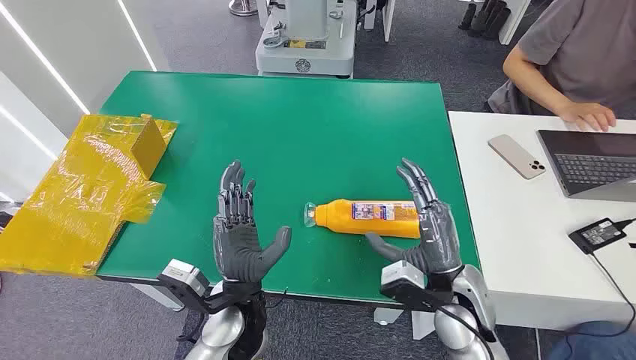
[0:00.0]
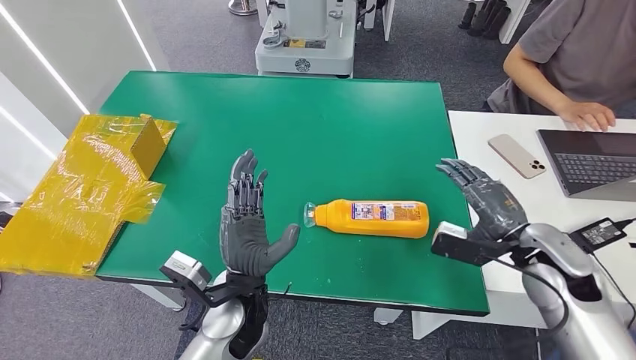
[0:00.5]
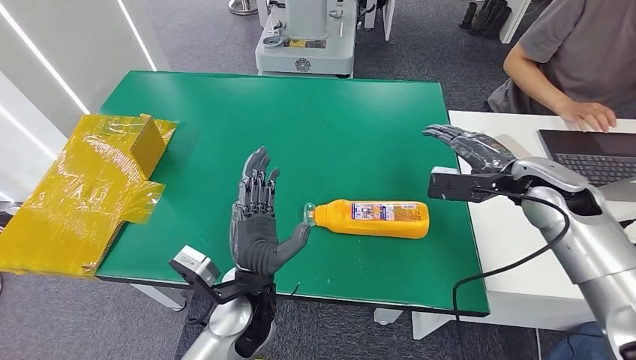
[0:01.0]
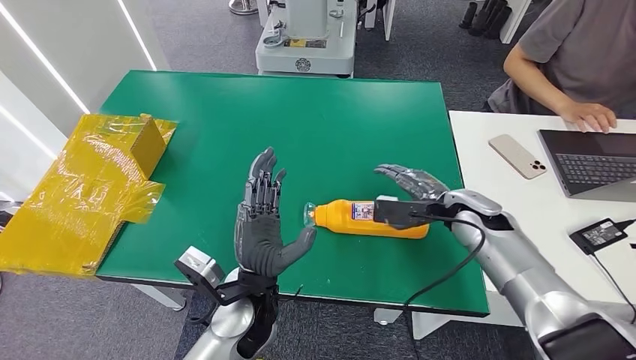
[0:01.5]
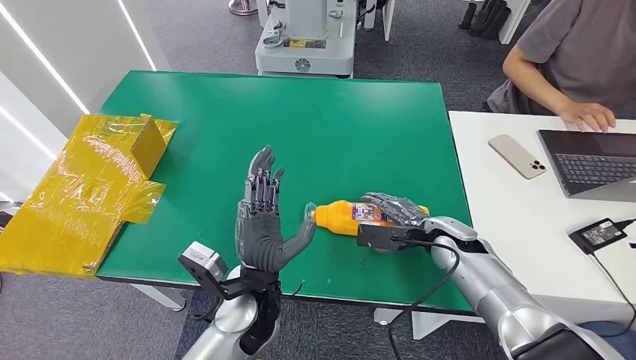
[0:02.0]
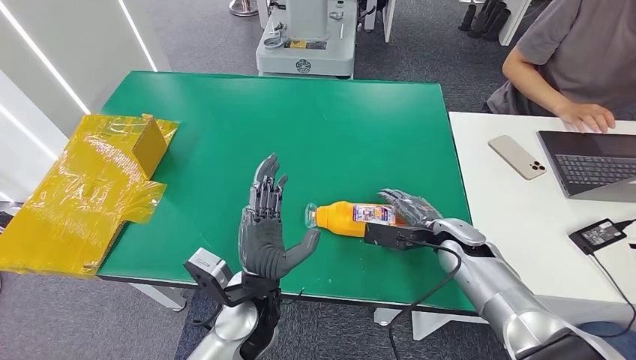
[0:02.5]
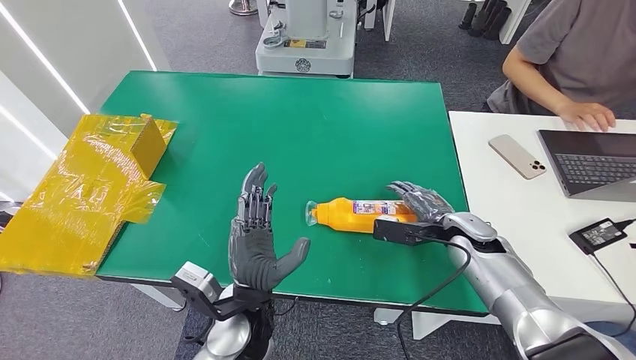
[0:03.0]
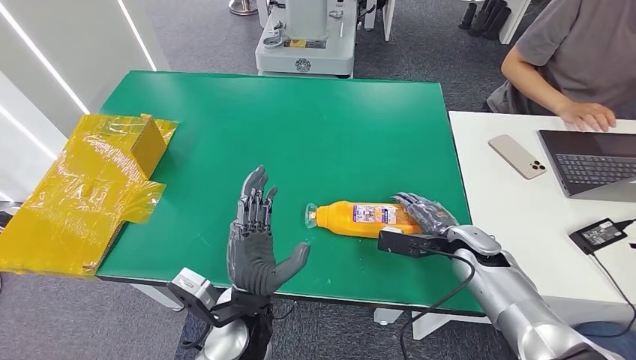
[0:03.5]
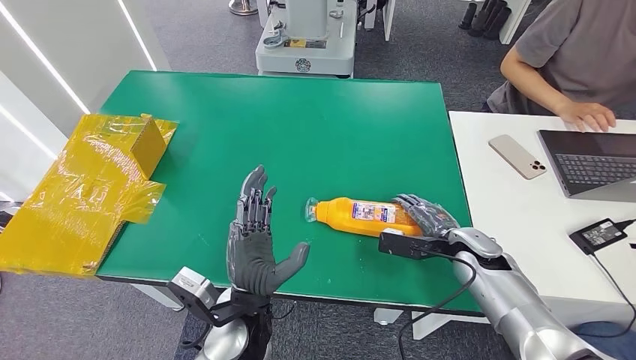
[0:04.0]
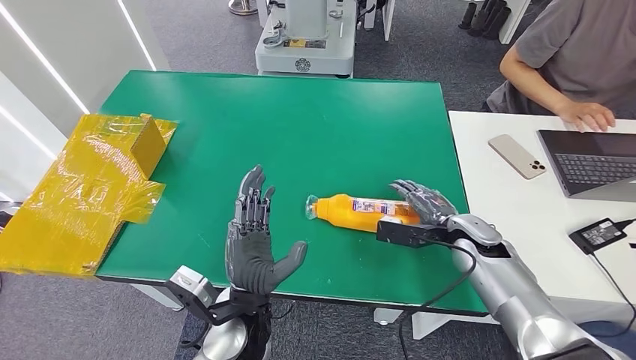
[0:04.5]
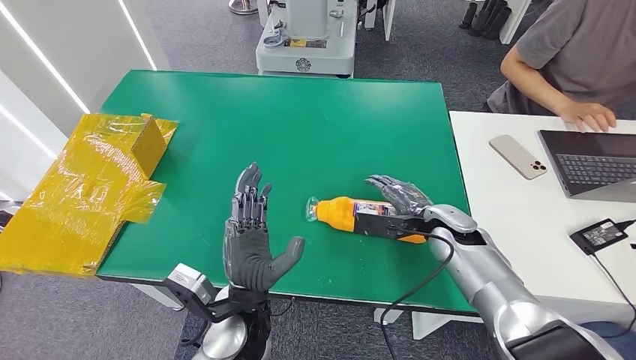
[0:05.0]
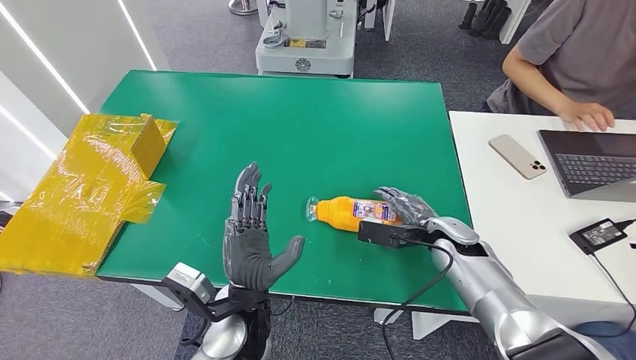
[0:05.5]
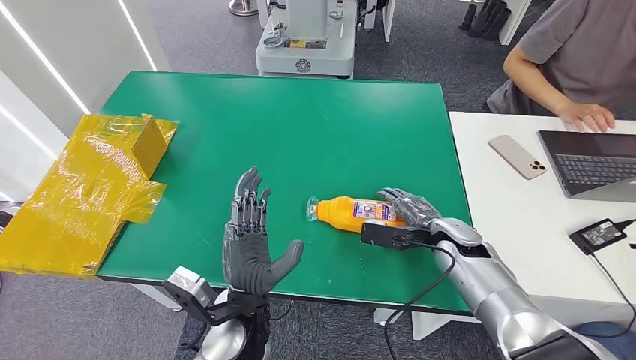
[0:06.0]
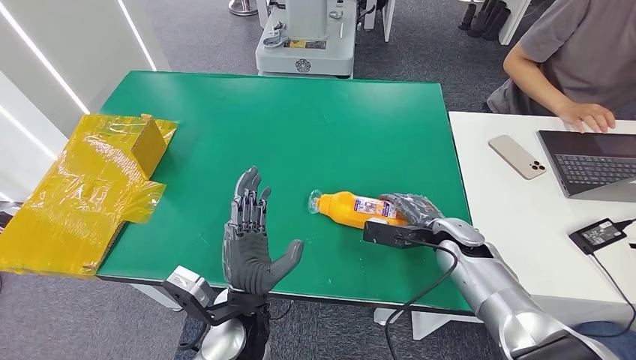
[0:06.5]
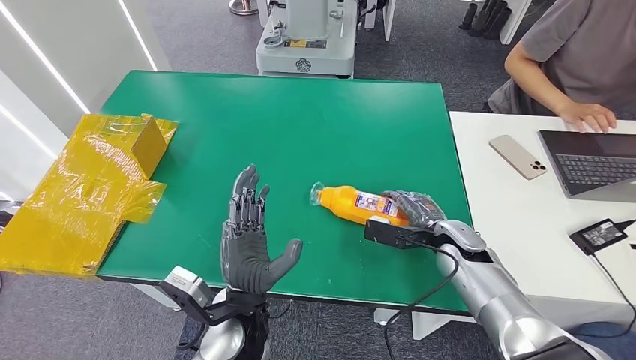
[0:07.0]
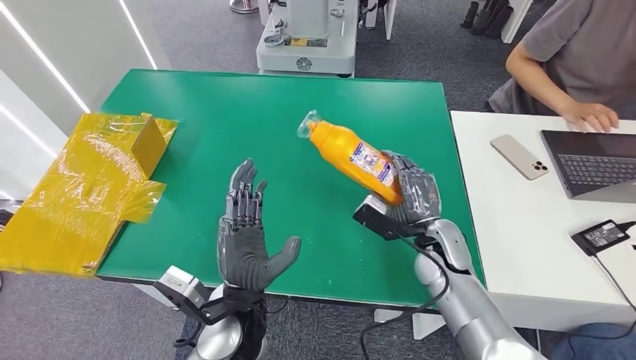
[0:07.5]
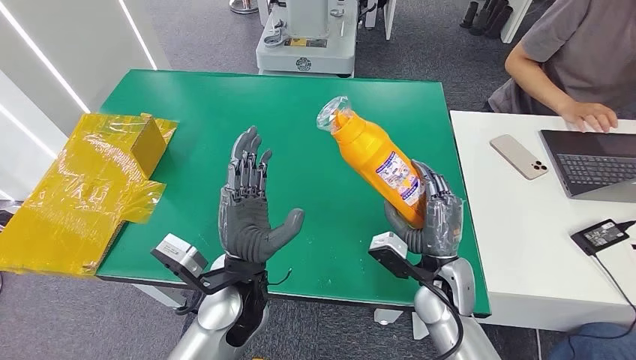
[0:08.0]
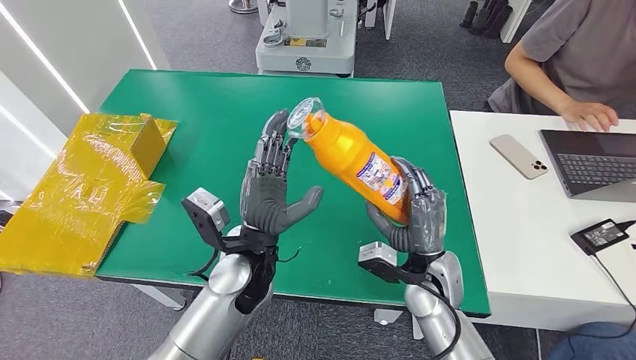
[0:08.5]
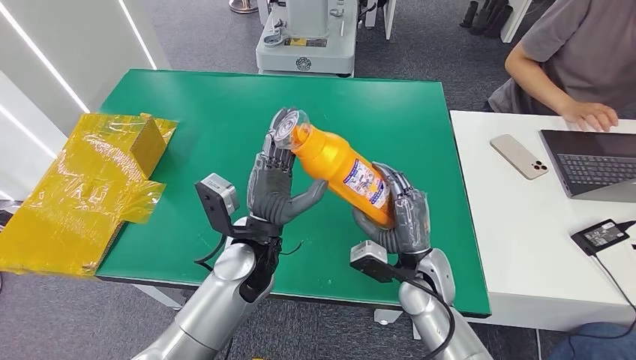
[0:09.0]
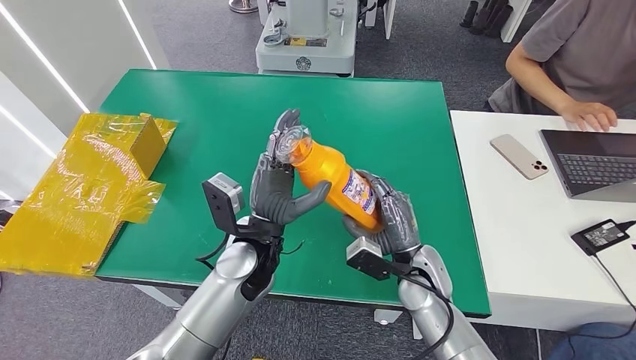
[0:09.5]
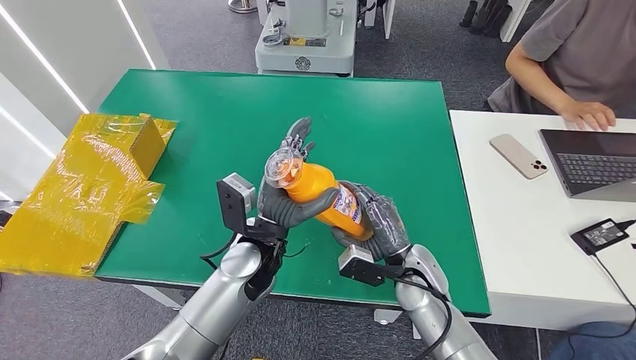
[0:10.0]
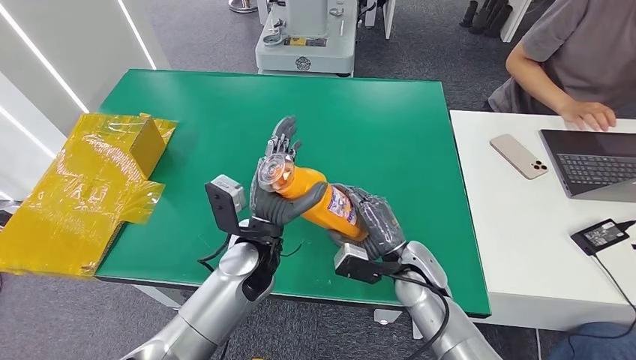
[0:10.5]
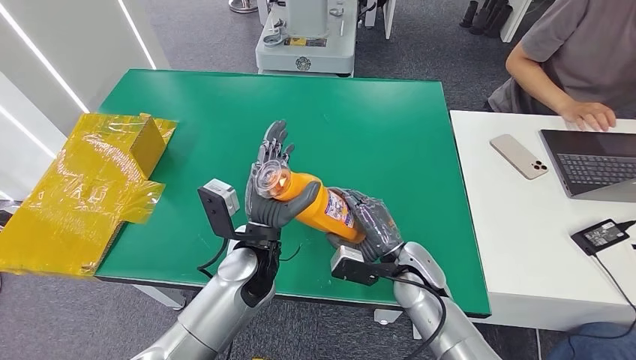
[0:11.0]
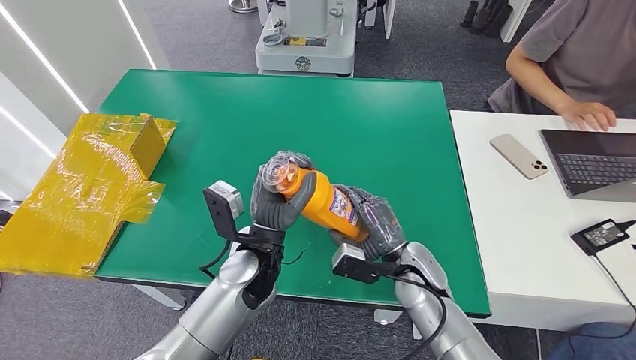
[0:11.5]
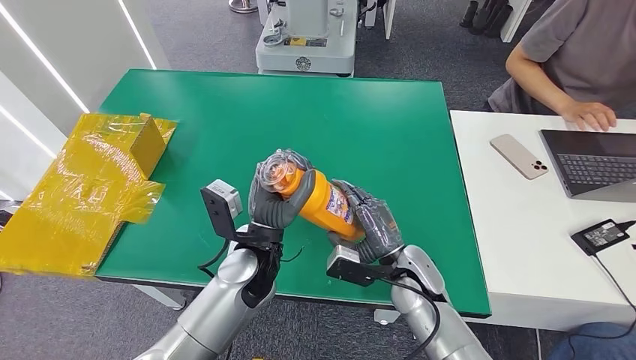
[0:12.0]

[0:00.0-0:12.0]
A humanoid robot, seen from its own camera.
Step, 0:00.0 to 0:07.5: Pick up the bottle from the table.
0:02.0 to 0:04.0: There are only small adjustments of the hands.
0:06.0 to 0:08.0: The left hand ends up approximately 5 cm from where it was. Meanwhile the right hand is displaced to the left and backward by approximately 15 cm.
0:08.0 to 0:10.0: The left hand goes about 5 cm forward.
0:10.0 to 0:12.0: The hands make only small movements.

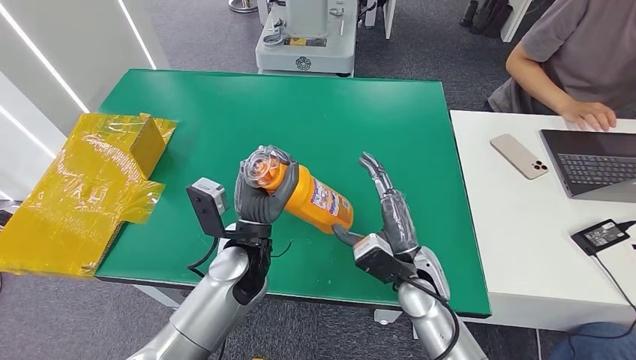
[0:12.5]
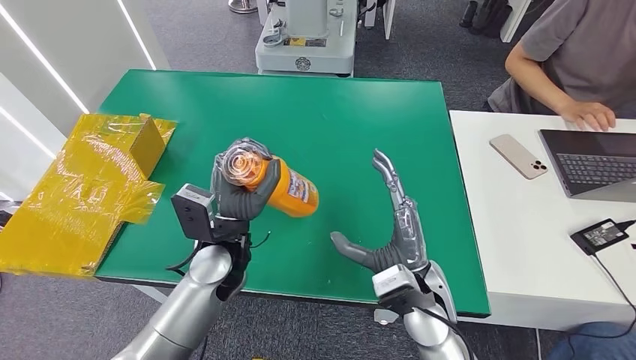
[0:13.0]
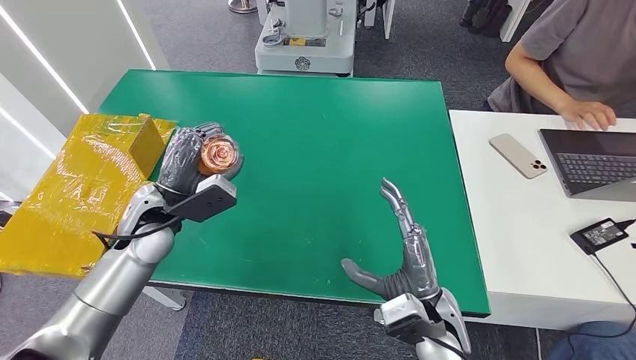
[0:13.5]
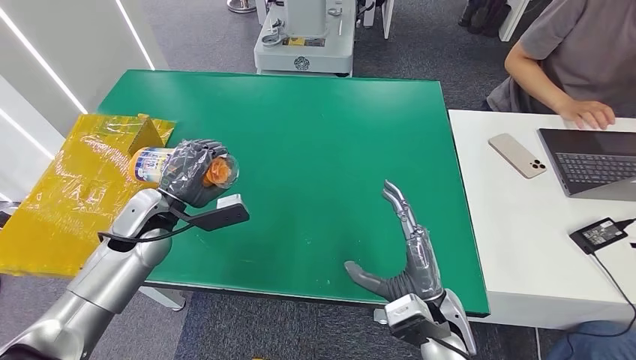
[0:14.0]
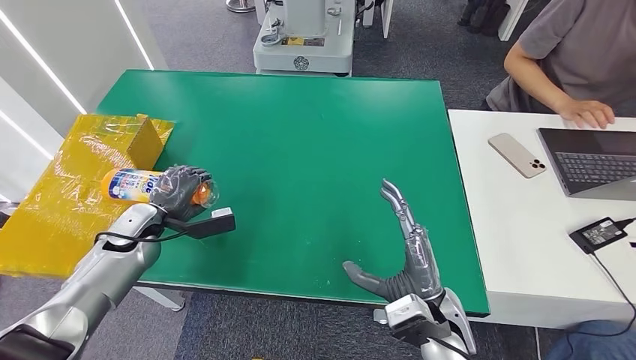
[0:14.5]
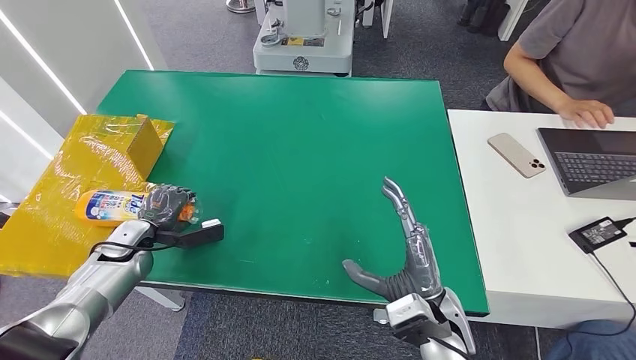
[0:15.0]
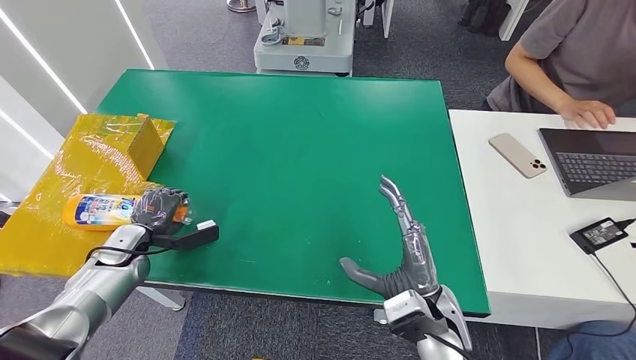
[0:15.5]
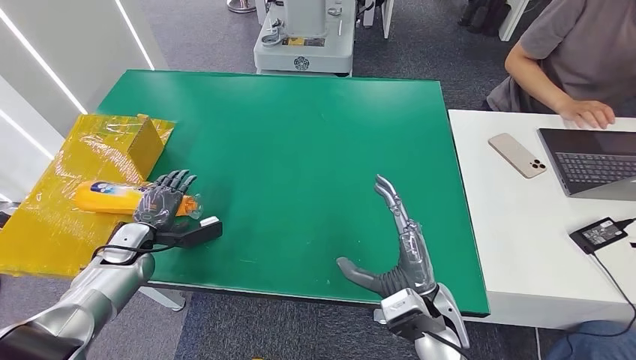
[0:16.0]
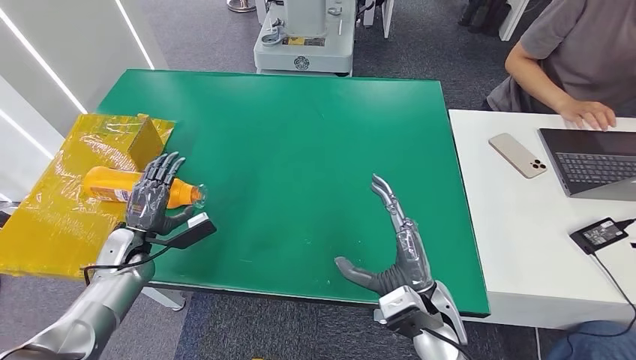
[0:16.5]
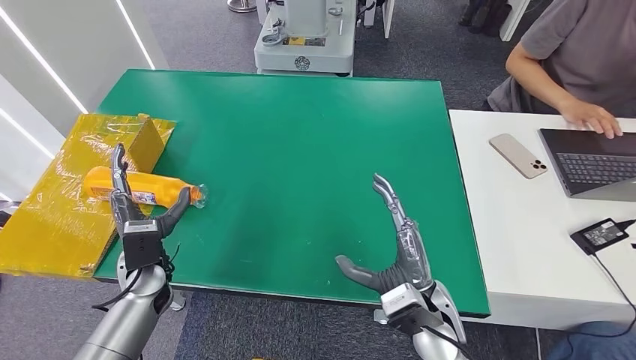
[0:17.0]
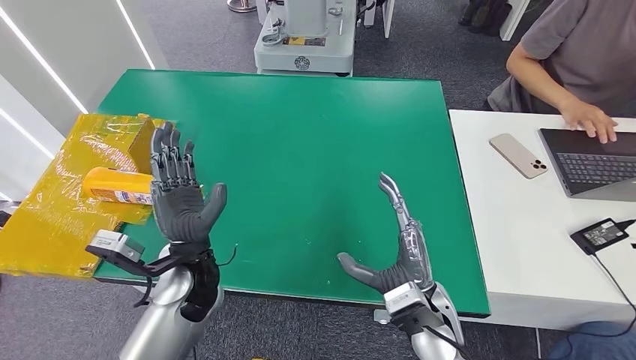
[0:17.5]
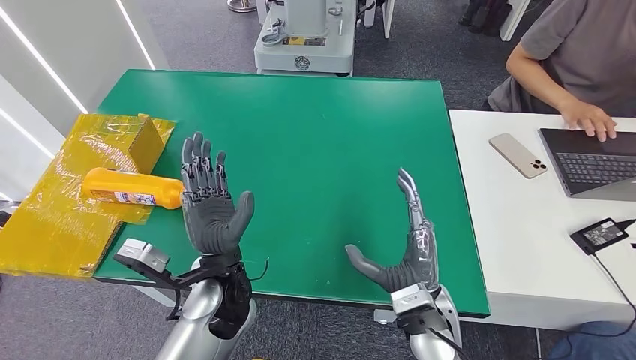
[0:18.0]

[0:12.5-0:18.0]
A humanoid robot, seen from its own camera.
Step, 0:12.5 to 0:18.0: Turn the bottle to the front side.
0:14.5 to 0:16.0: The left hand moves downward, some 5 cm.
0:16.0 to 0:18.0: The left hand travels to the right by some 25 cm.
